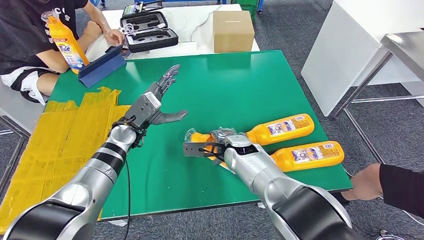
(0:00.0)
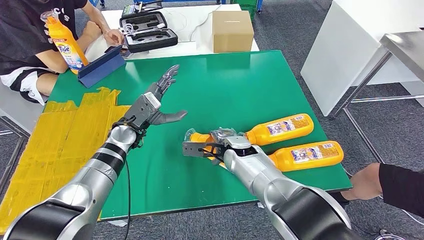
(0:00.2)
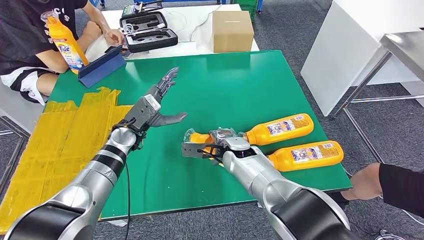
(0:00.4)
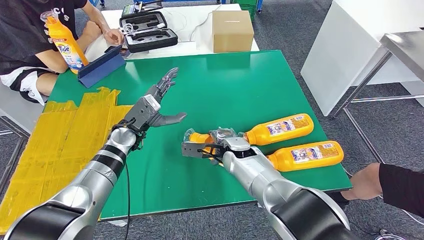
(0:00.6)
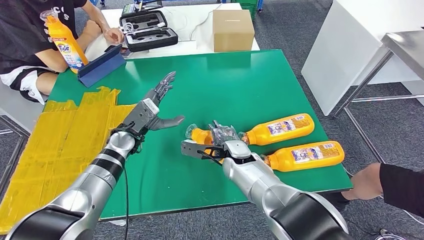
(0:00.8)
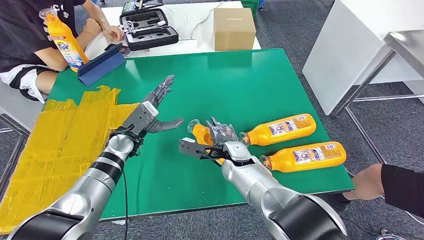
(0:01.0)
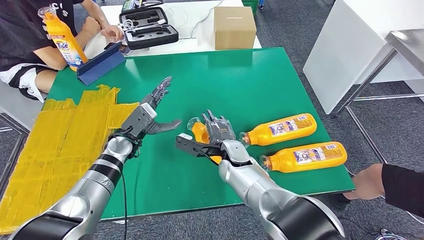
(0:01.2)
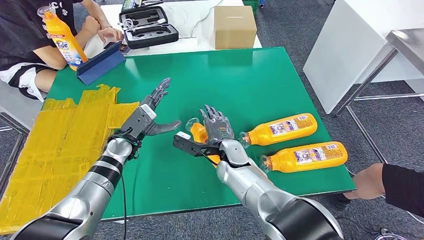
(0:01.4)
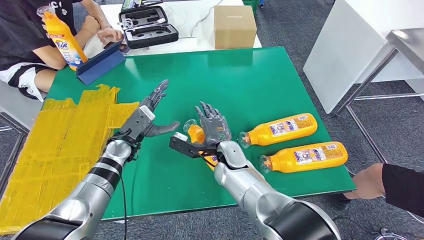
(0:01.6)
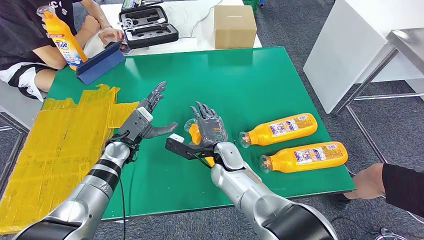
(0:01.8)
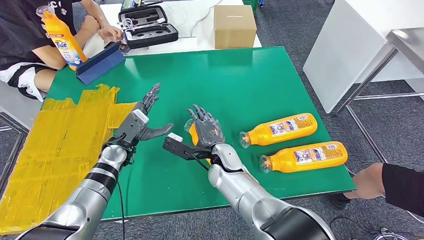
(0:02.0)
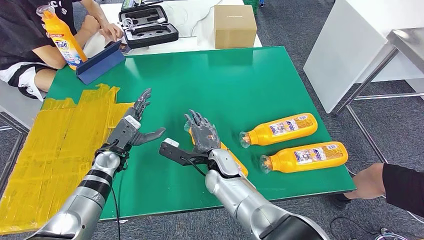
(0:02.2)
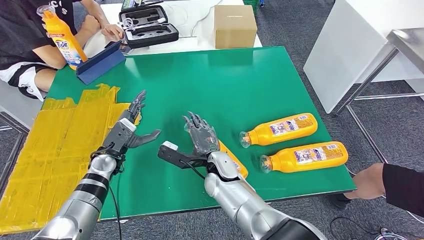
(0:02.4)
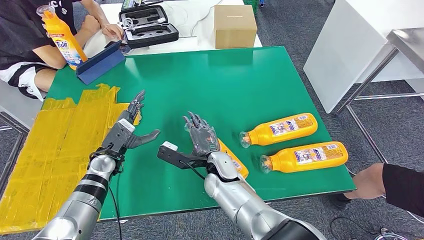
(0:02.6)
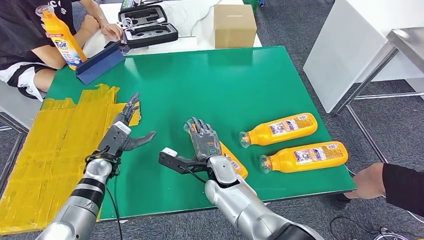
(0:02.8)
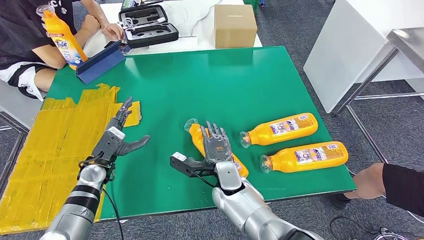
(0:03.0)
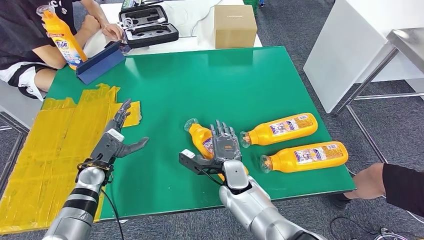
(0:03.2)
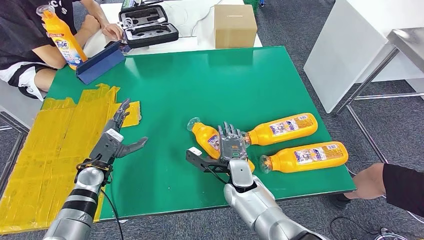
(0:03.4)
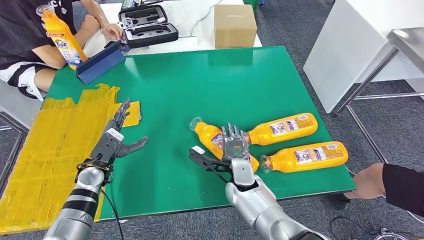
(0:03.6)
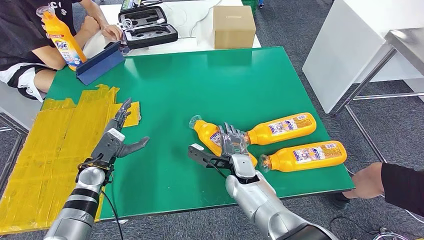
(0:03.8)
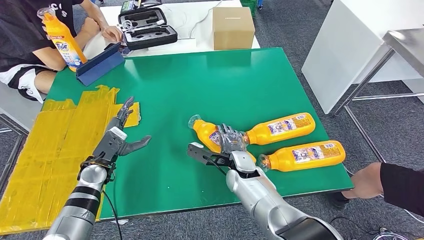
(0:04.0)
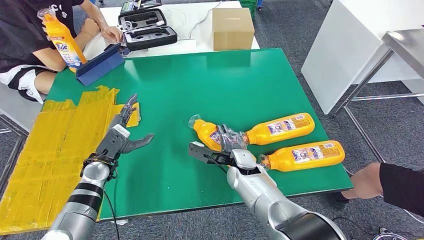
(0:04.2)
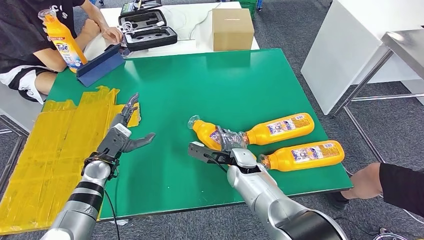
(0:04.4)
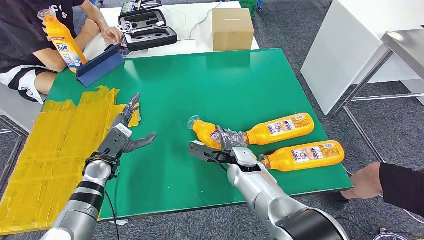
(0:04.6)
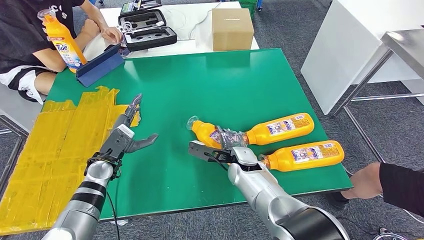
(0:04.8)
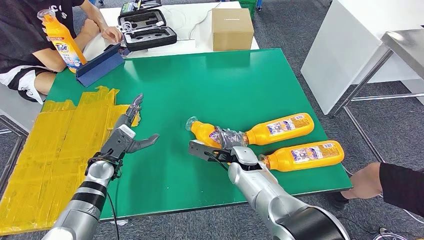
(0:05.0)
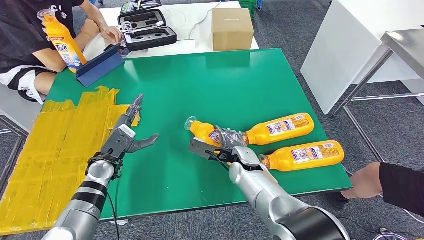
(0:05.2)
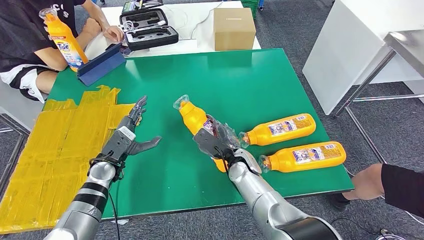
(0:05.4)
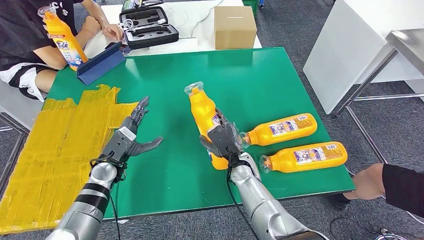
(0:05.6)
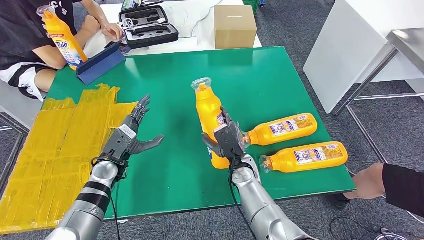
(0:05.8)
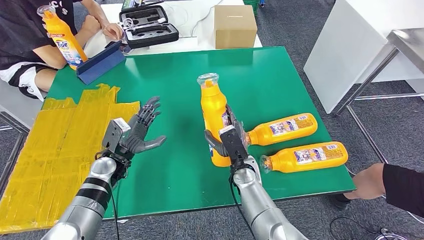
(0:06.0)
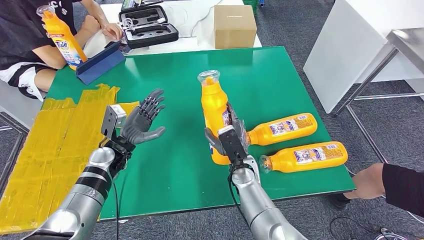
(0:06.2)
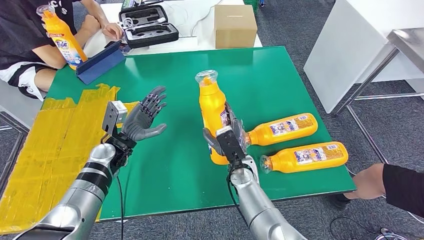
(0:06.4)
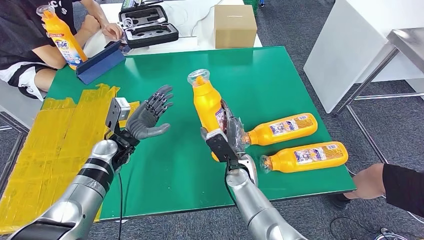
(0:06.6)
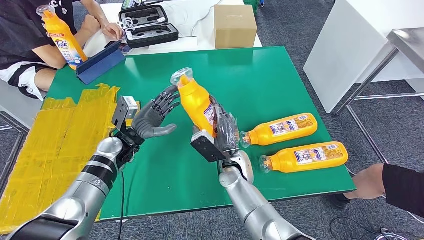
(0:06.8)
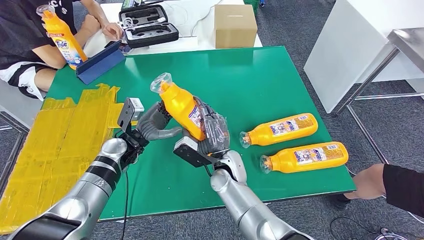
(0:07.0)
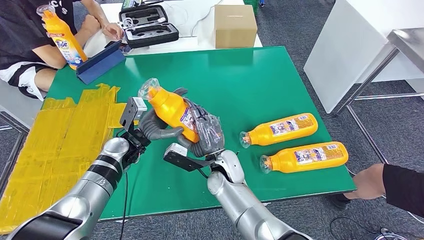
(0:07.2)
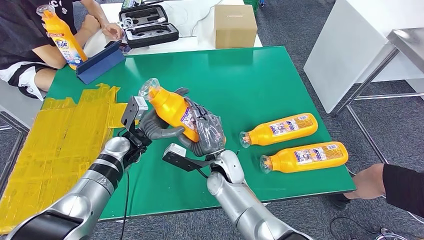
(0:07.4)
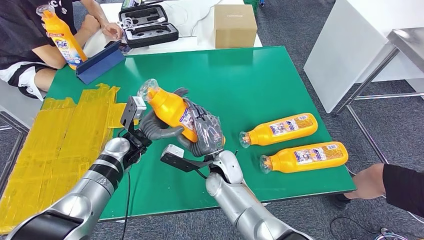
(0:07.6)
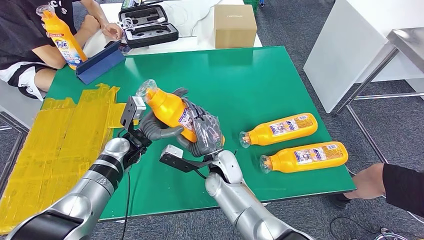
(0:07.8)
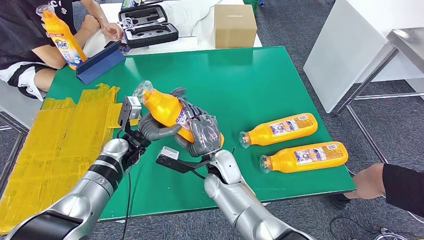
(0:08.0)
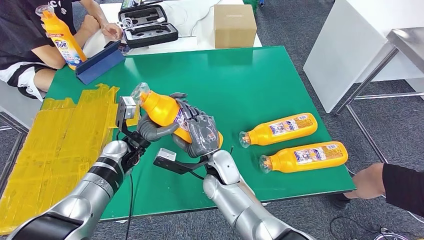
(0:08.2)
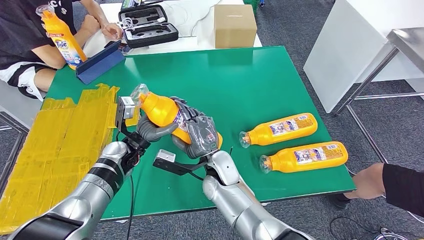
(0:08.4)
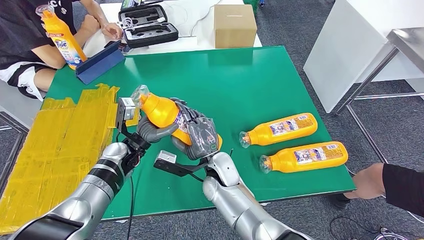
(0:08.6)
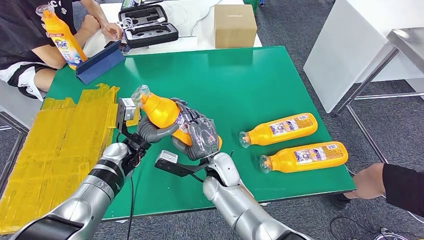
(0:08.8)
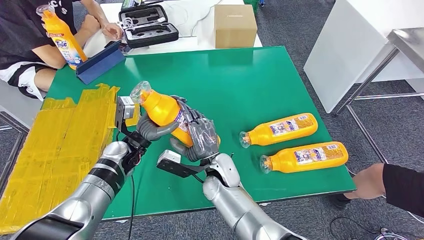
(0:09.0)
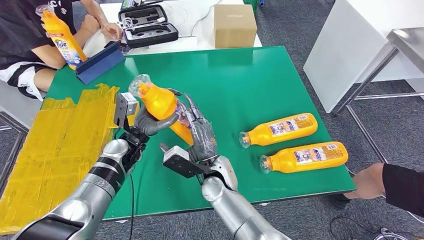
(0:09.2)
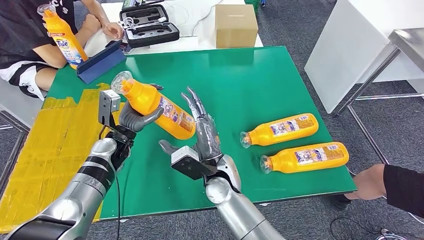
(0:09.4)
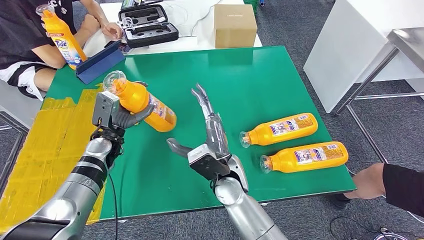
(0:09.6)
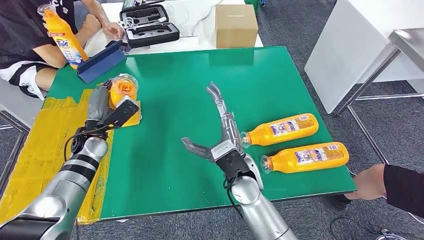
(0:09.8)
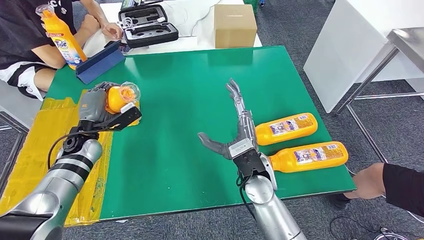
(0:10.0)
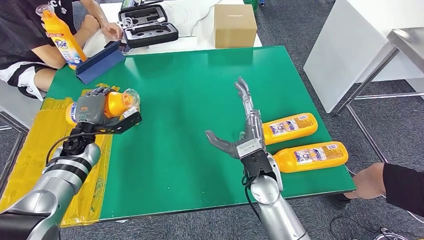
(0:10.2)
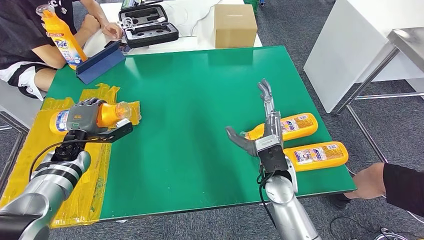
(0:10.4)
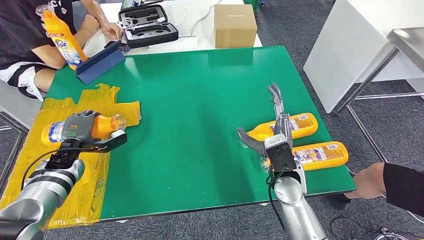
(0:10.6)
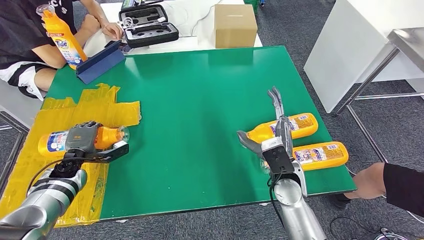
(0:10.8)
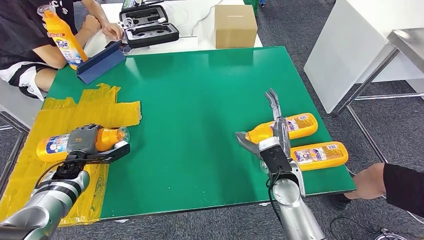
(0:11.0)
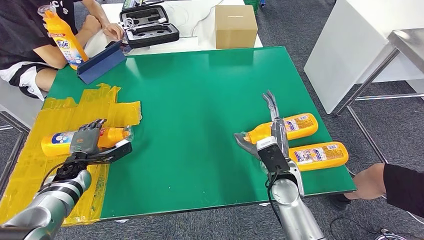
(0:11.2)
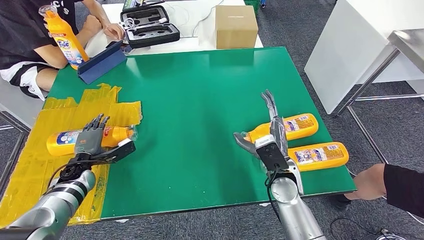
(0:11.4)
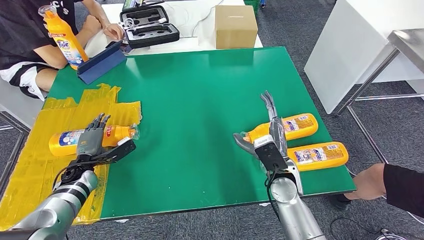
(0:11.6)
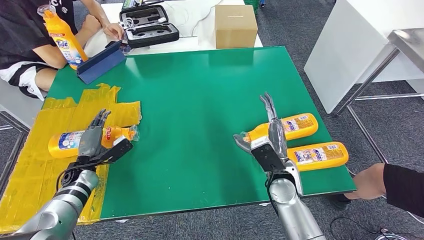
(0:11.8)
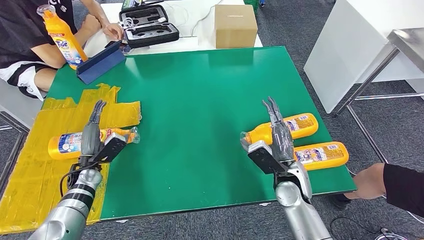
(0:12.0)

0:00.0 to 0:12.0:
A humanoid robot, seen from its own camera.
Step, 0:00.0 to 0:05.4: Pick up the fast-moving consumer goods bottle from the table.
0:01.6 to 0:03.0: The right hand shifts roughly 5 cm backward; the left hand travels to the left by some 5 cm.
0:06.0 to 0:07.6: The left hand is displaced to the right by approximately 5 cm; the right hand goes about 5 cm to the left.
0:07.6 to 0:09.0: The hands stay close to where they were, moving slightly.
0:10.4 to 0:12.0: The left hand is displaced downward and backward by some 10 cm; the right hand moves to the right, some 5 cm.

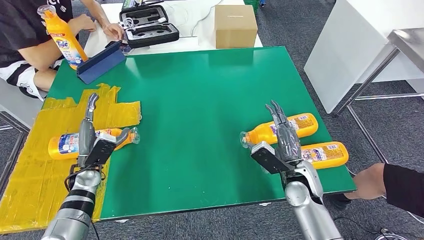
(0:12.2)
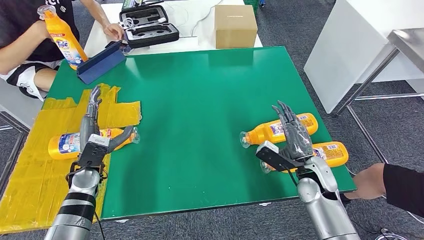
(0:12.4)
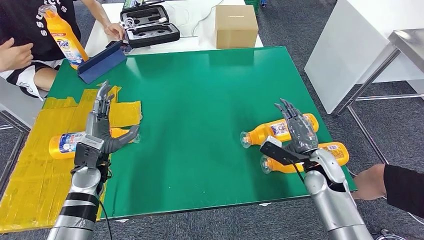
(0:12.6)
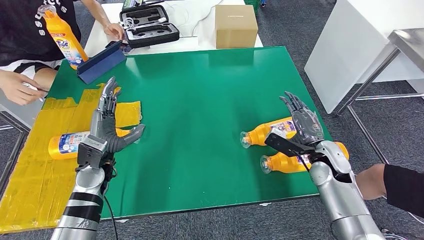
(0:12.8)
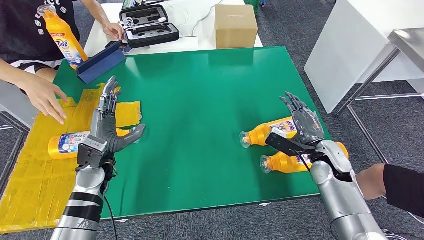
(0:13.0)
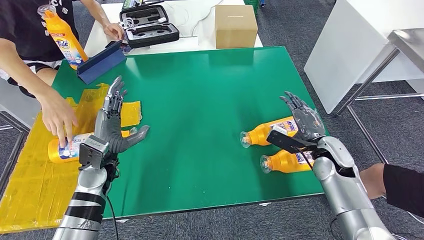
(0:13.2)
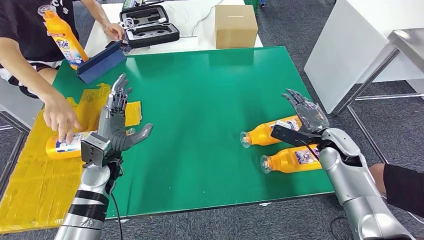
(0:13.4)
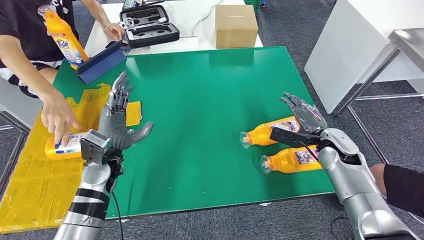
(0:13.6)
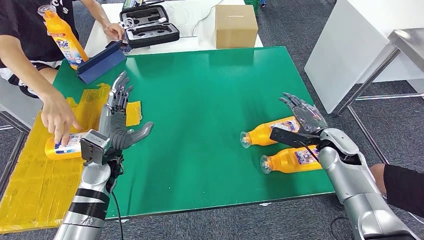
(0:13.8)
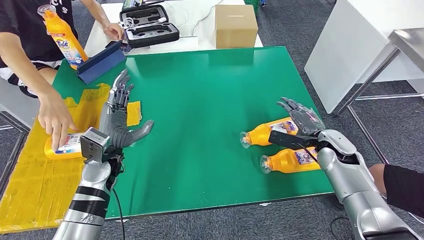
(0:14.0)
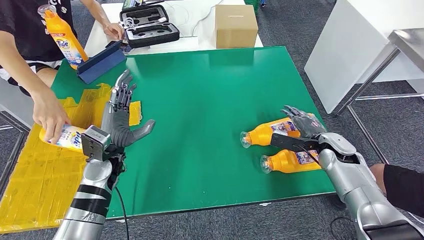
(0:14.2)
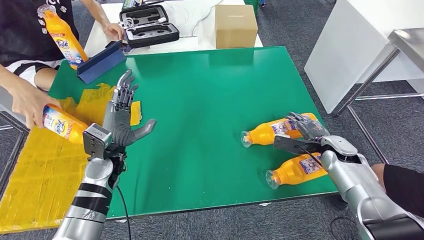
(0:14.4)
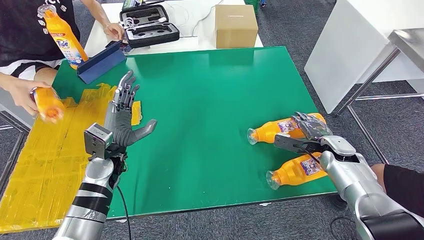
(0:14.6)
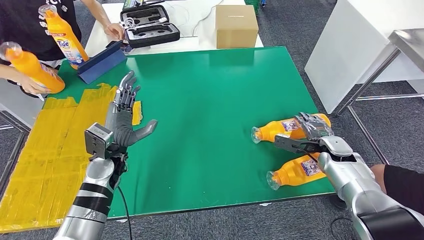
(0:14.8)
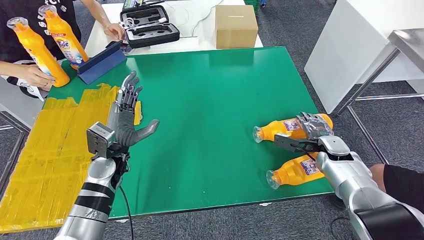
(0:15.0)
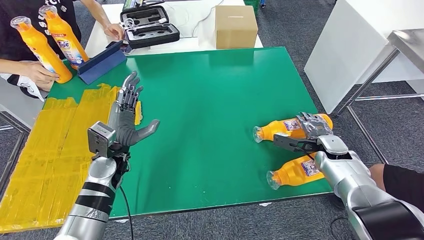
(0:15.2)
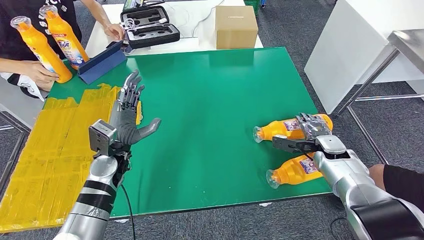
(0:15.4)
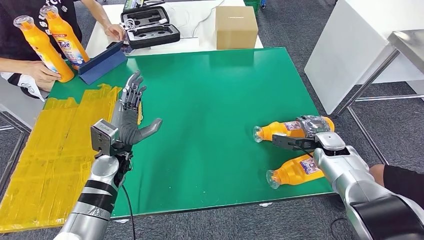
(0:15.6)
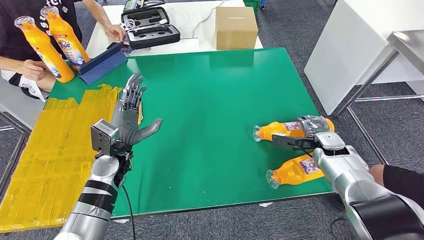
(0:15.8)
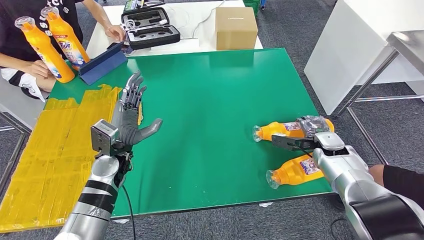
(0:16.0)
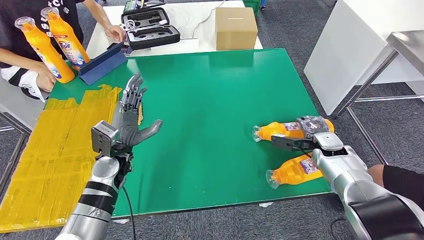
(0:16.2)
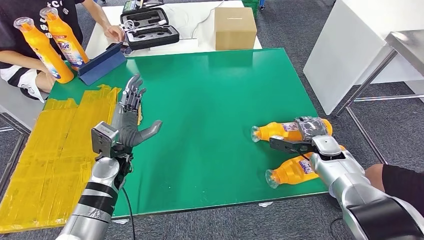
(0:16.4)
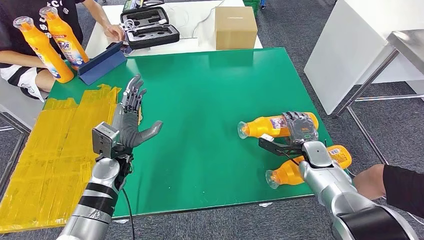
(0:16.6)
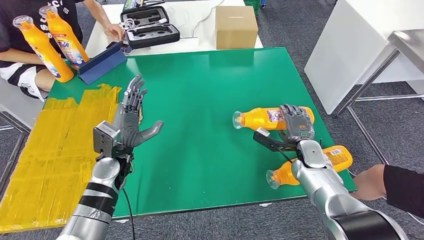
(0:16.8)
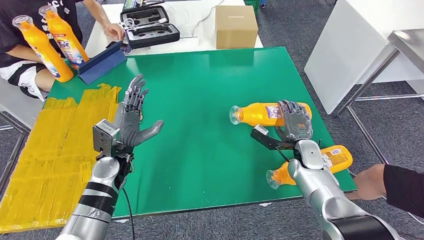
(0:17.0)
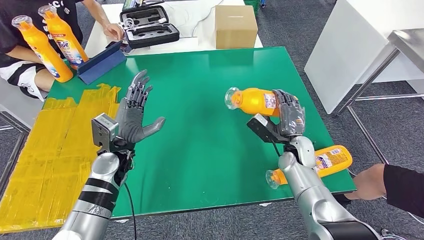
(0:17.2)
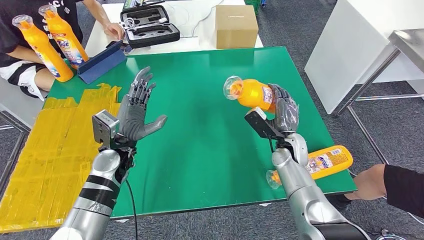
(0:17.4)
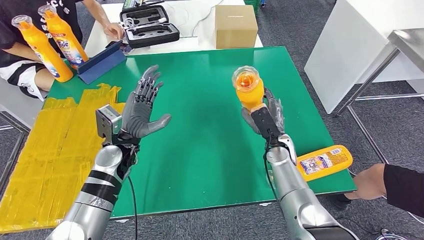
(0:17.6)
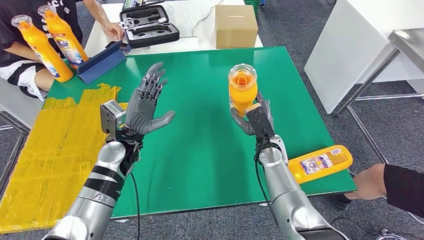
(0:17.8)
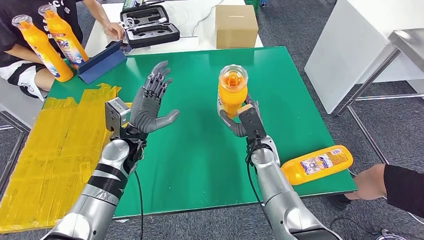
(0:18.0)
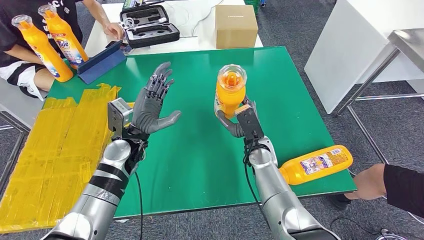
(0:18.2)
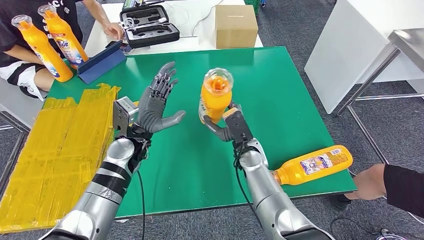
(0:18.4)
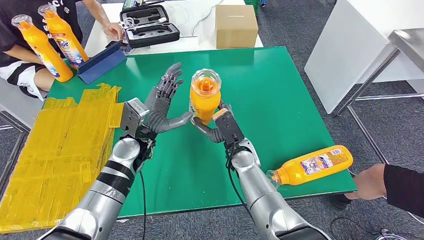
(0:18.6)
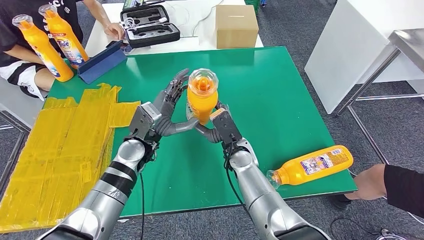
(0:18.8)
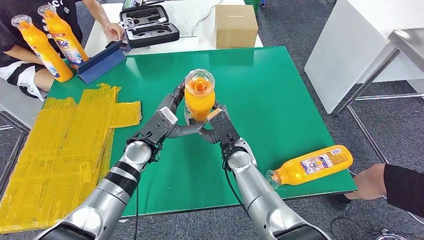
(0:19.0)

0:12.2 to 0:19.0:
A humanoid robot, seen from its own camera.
Step, 0:12.4 to 0:17.2: Pick up the fast-moving consumer goods bottle from the table.
0:13.6 to 0:15.0: The right hand shifts by approximately 5 cm.
0:15.0 to 0:16.2: The hands make only small movements.
0:17.6 to 0:19.0: The right hand is displaced to the left by roughly 10 cm. Meanwhile the left hand goes about 5 cm to the right.
